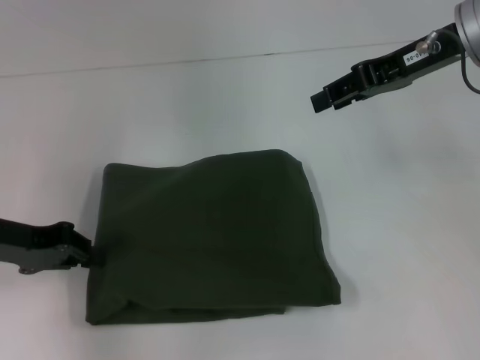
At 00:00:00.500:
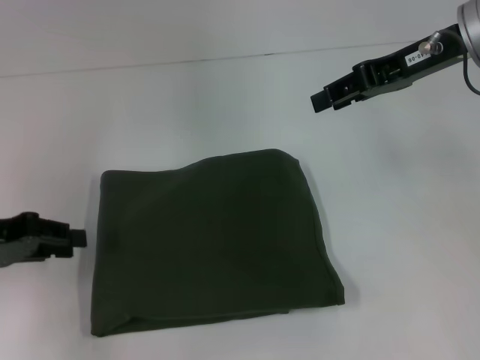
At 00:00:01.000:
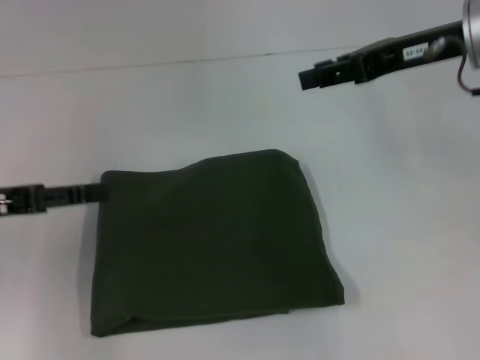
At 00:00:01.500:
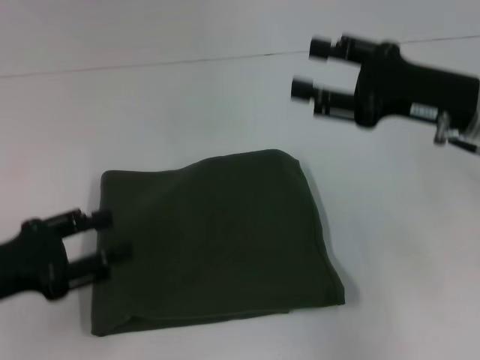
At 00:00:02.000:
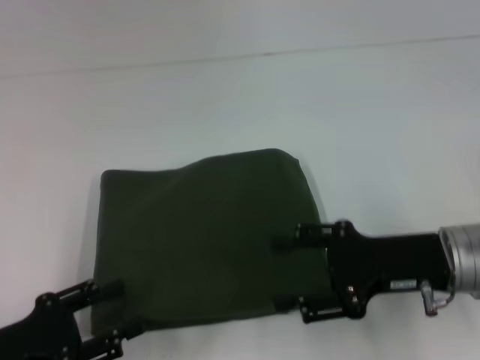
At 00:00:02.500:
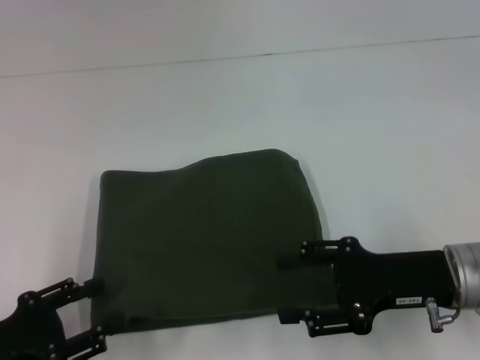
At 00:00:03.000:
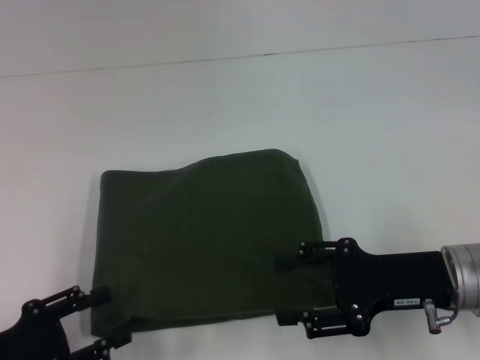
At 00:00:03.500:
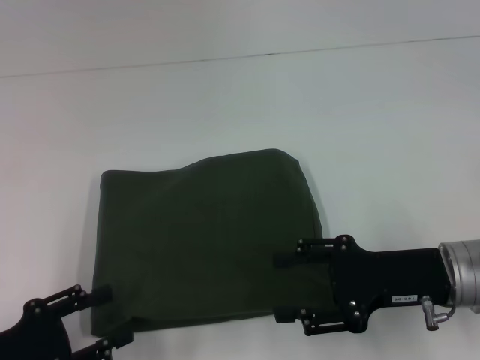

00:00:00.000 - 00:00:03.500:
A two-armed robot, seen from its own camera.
00:00:00.000 - 00:00:02.000: The left gripper heads backward and downward, covering approximately 15 cm, and opens; the right gripper goes about 20 cm downward and backward, and opens up.
00:00:02.000 - 00:00:03.500: There are only small adjustments of the grippers.

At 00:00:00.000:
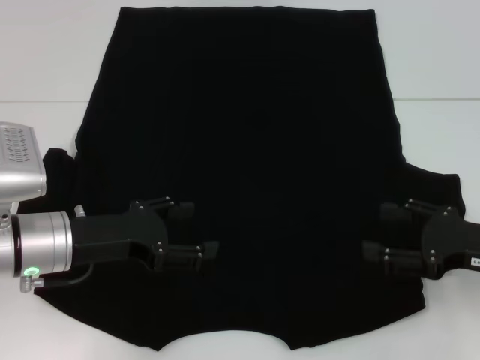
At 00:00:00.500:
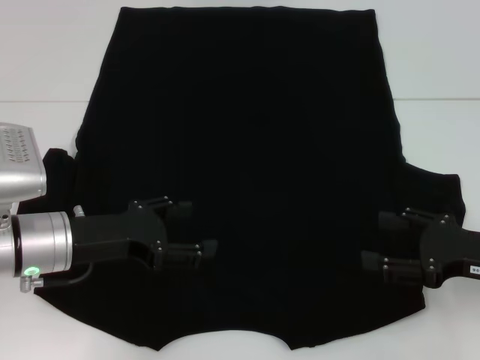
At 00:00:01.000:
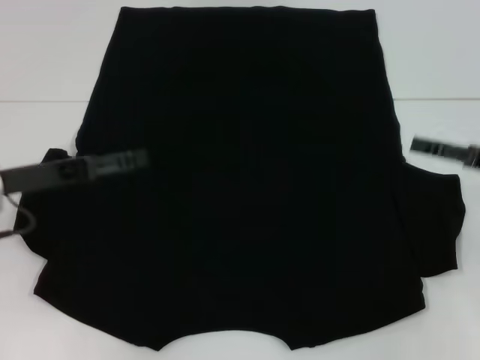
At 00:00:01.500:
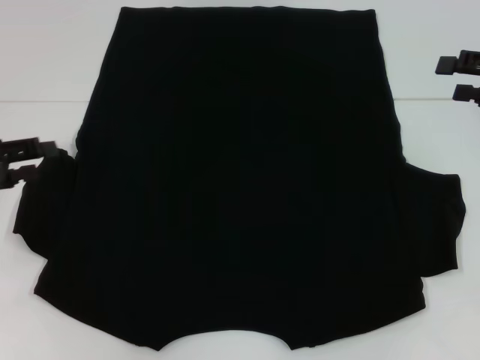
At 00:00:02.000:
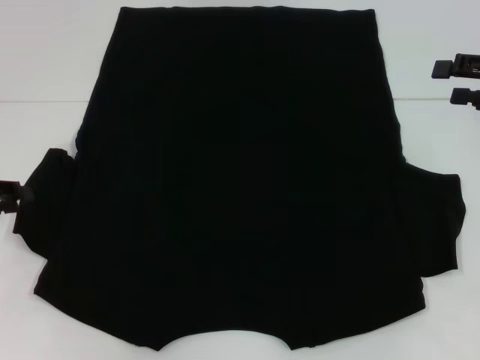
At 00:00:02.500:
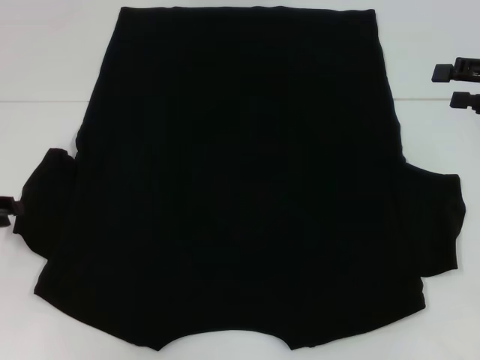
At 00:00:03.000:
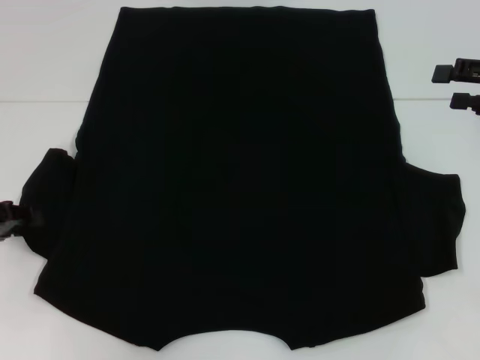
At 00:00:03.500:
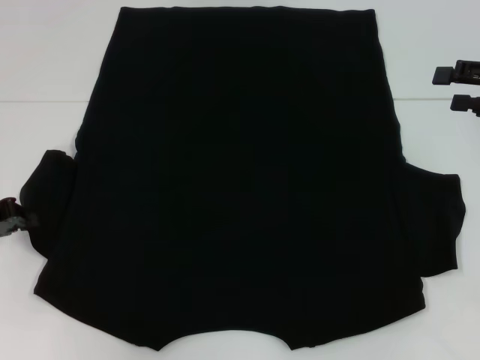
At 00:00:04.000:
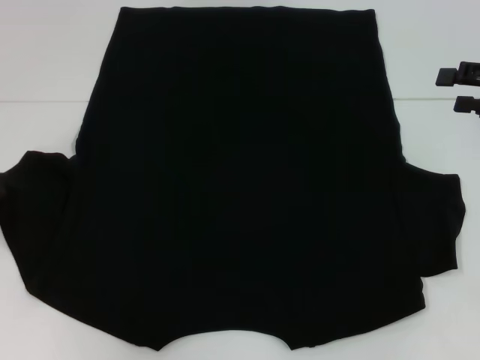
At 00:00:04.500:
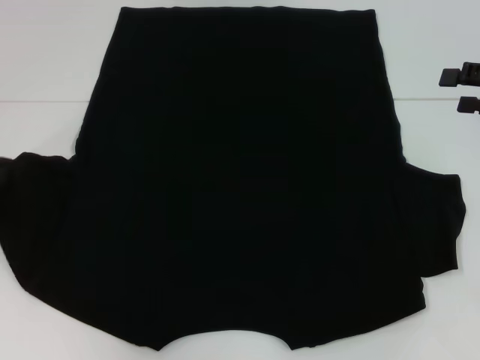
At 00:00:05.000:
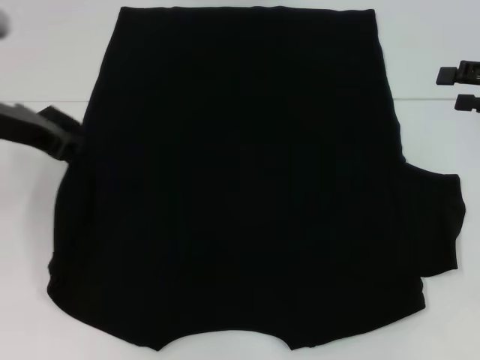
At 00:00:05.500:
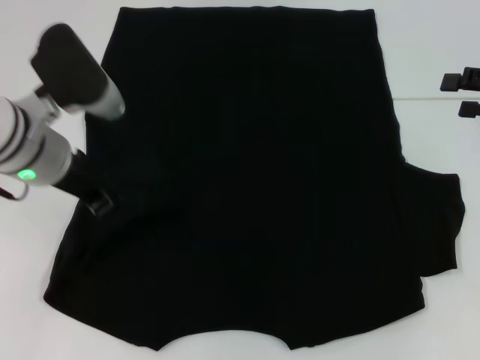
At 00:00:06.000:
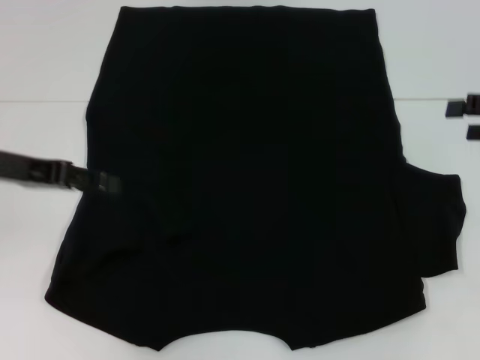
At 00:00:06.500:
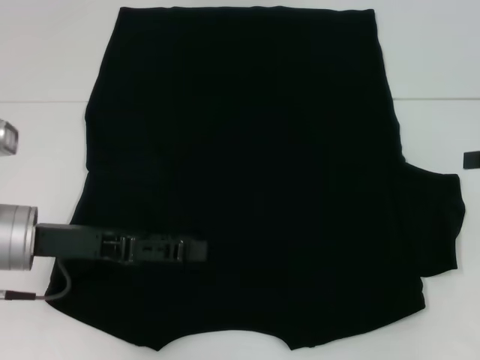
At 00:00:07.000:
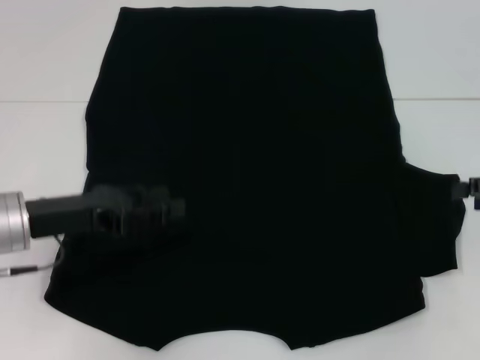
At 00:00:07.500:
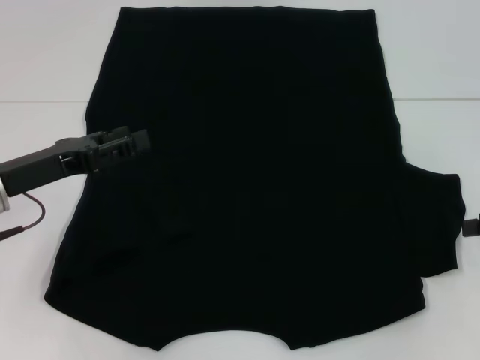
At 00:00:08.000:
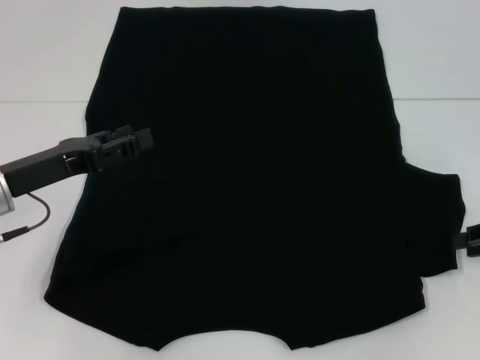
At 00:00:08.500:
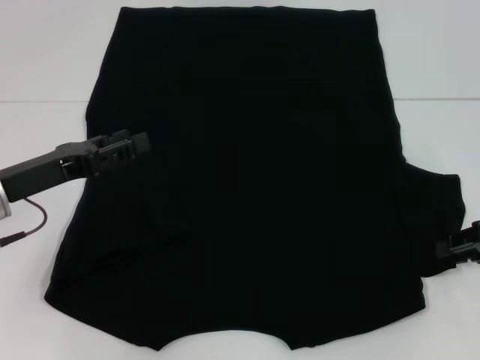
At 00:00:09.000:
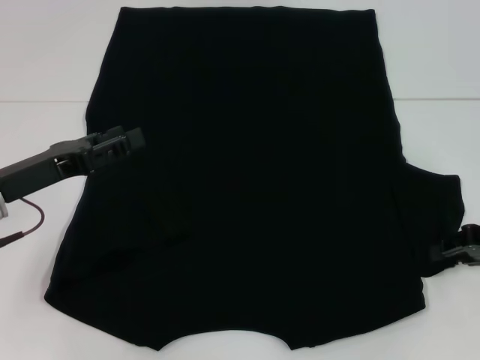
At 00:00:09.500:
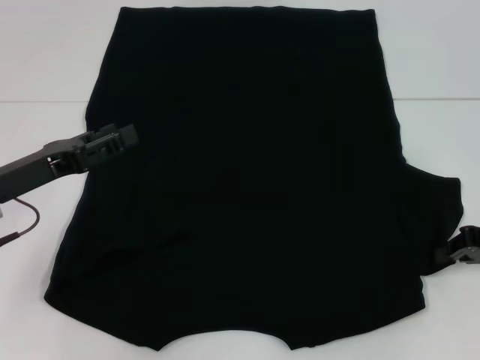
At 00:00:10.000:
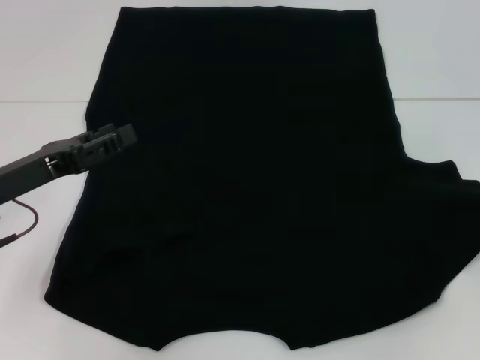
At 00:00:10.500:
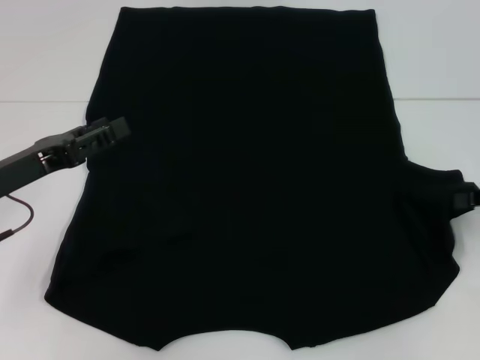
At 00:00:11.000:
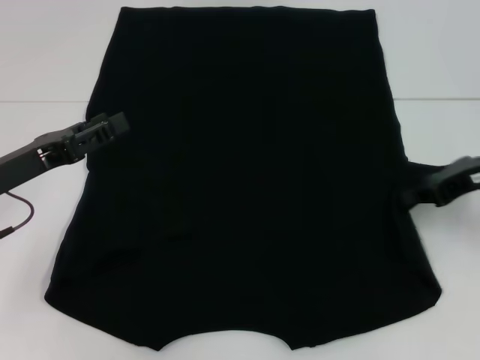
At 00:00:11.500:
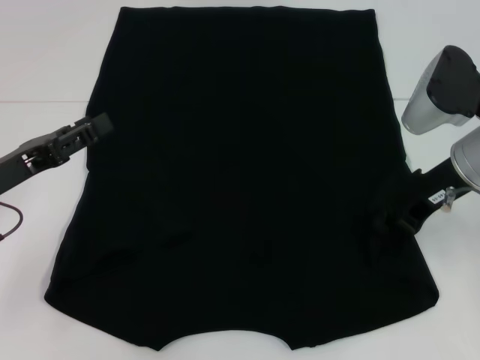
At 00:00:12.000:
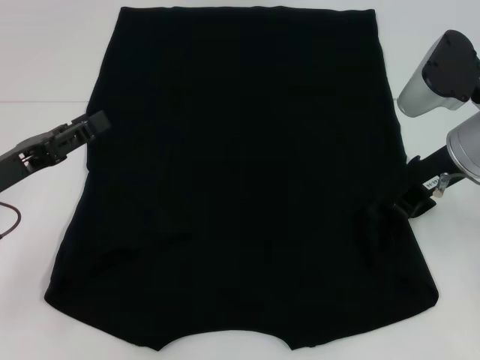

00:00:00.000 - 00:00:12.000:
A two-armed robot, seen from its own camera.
Step, 00:00:00.000 - 00:00:05.500: Fold the bottom left sleeve with your left hand.
00:00:00.000 - 00:00:02.000: The left gripper goes some 15 cm to the left, and closes up; the right gripper heads upward, forward and to the right, covering about 15 cm.
00:00:02.000 - 00:00:04.000: The left gripper closes.
00:00:04.000 - 00:00:06.000: The left gripper travels to the right by about 10 cm, and opens.
00:00:06.000 - 00:00:08.000: The two grippers go roughly 5 cm downward.
00:00:08.000 - 00:00:10.000: The right gripper closes up.
00:00:10.000 - 00:00:12.000: The right gripper shifts some 20 cm to the left.

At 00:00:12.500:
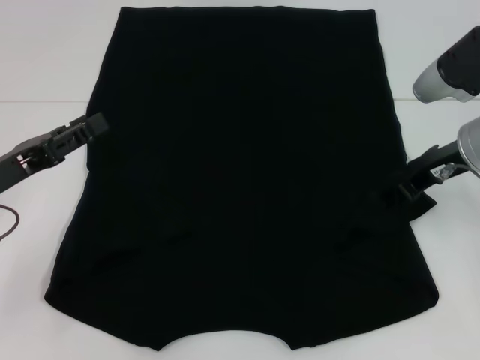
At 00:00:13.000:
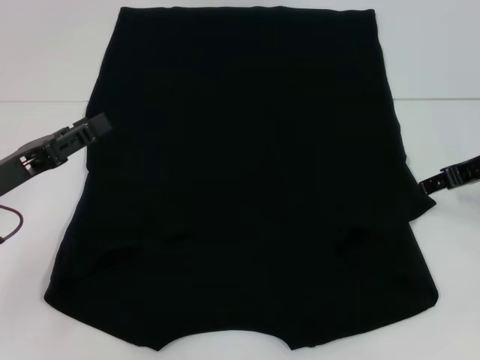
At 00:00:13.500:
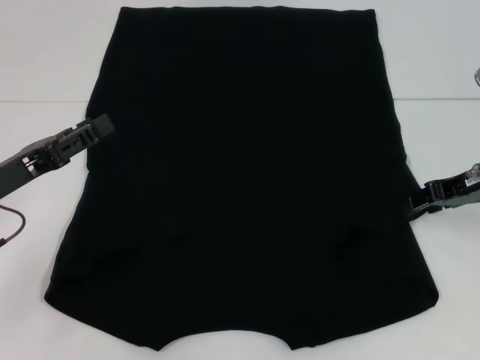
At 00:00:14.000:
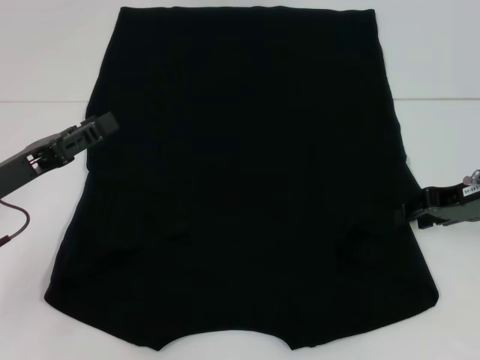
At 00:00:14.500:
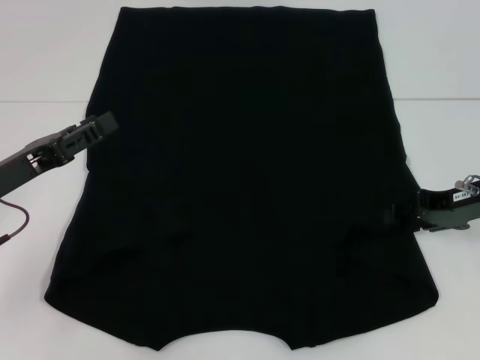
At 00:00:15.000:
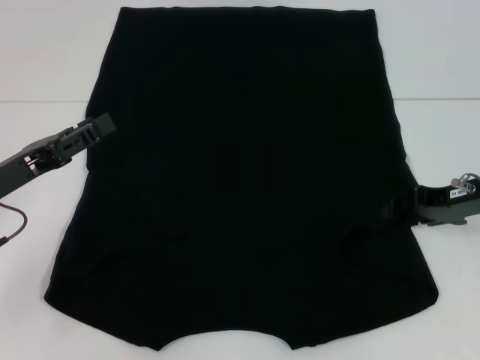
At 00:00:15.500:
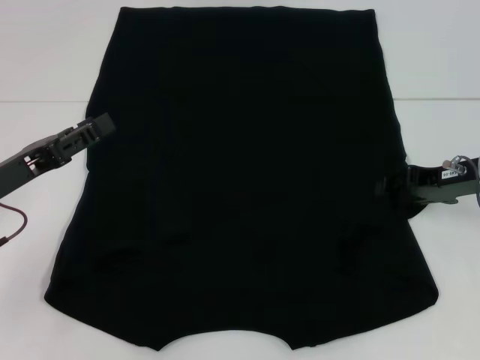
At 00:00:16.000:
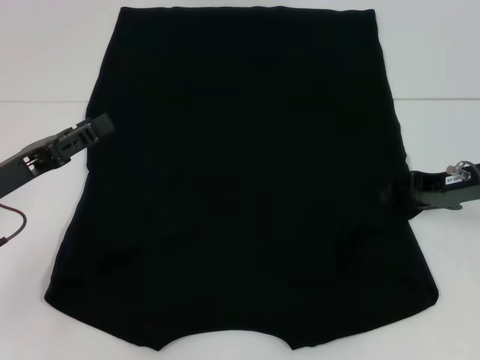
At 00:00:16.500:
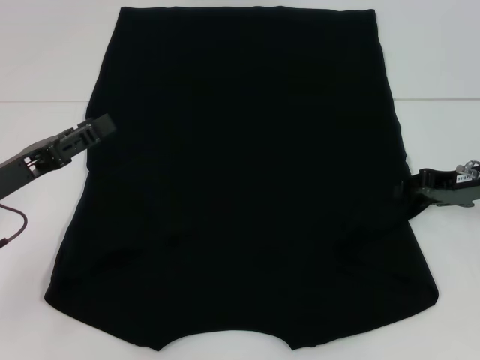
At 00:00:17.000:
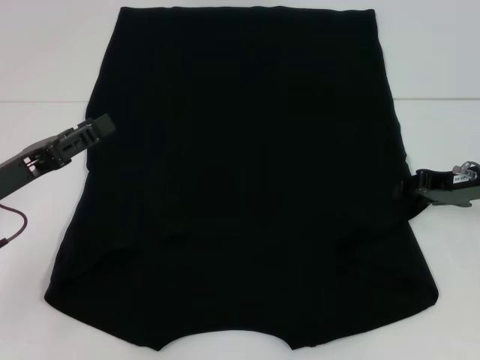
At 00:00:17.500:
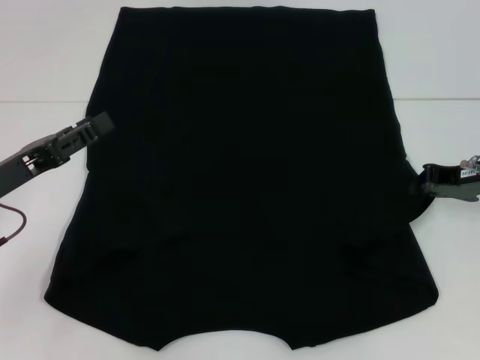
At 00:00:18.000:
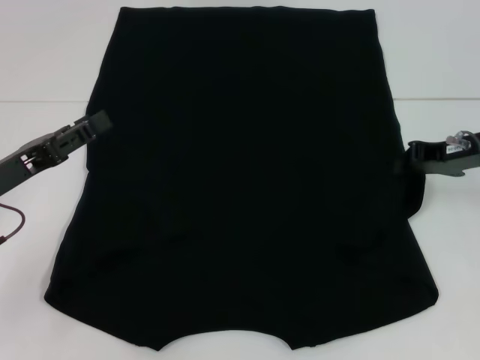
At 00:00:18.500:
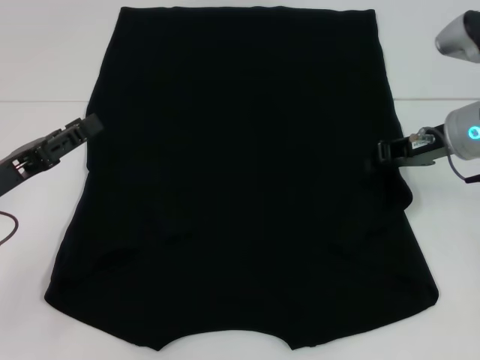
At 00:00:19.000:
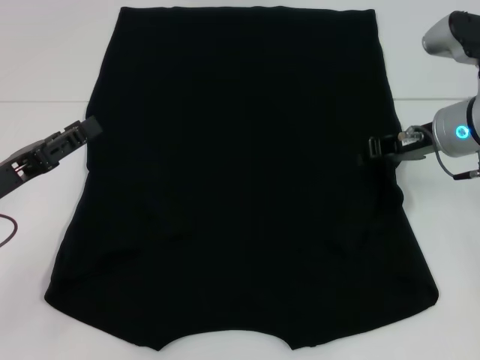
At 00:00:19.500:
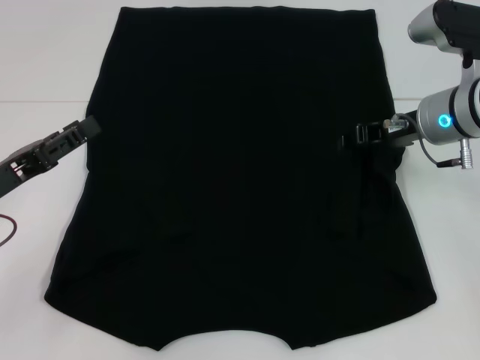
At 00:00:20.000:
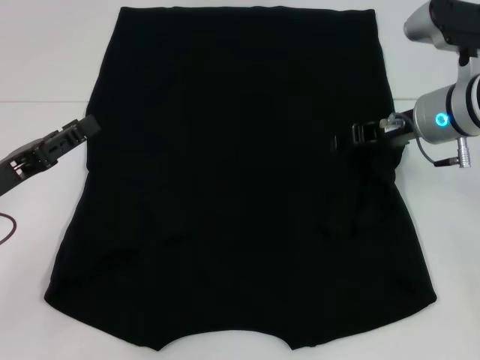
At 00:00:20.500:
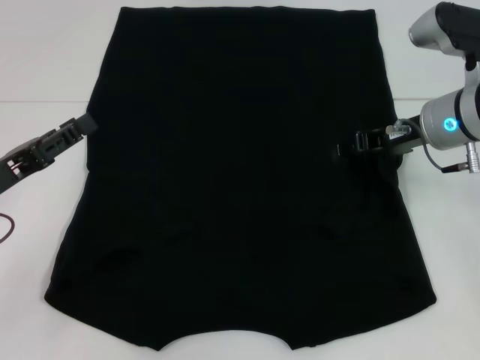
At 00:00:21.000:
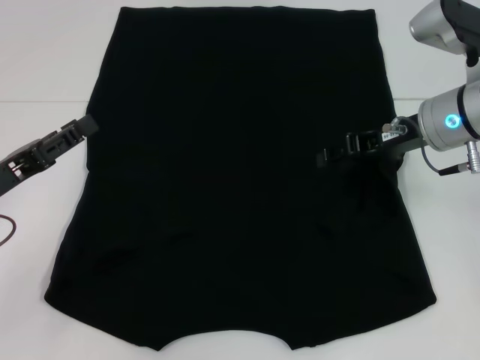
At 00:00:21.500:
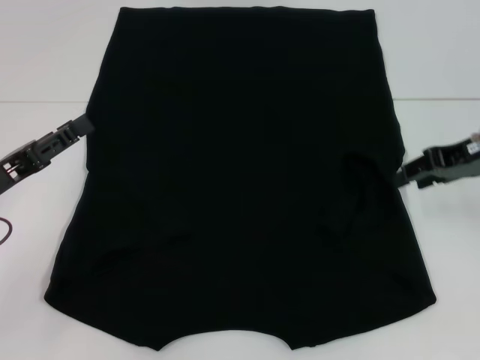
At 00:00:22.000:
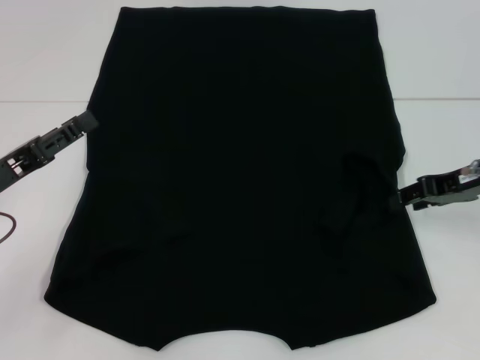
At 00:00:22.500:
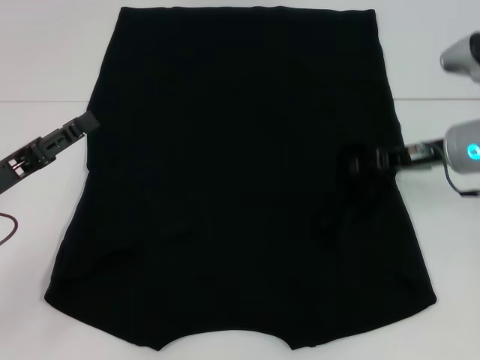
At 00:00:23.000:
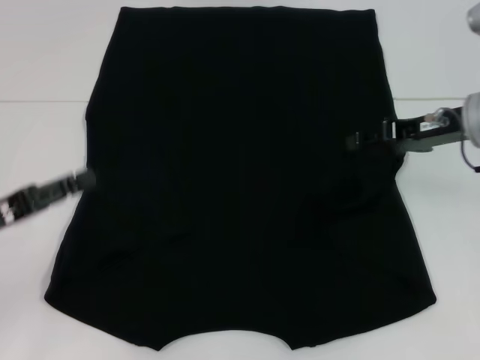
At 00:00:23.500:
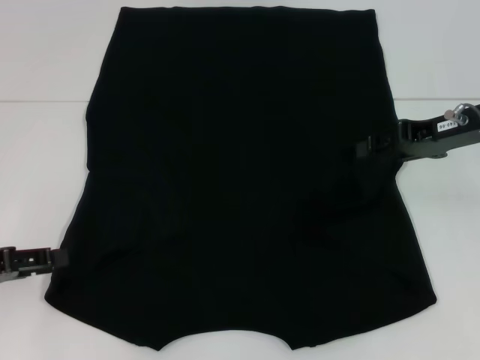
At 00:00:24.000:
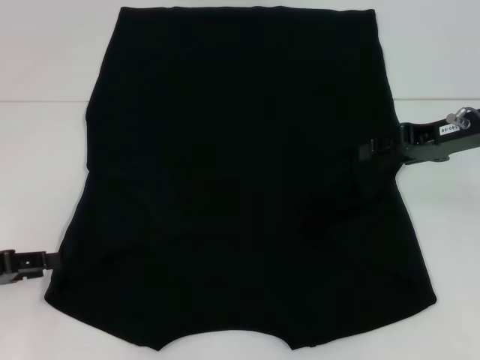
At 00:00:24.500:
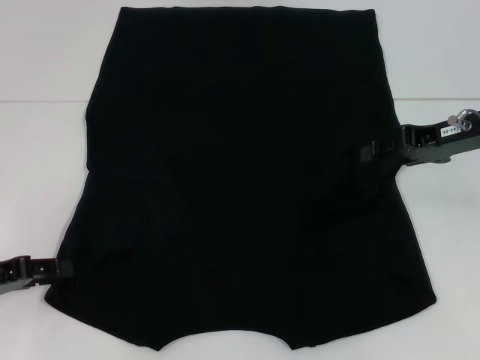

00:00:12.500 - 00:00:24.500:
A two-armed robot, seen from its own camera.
Step, 00:00:12.500 - 00:00:21.000: Fold the bottom right sleeve with your right hand.
00:00:12.500 - 00:00:14.500: The right gripper moves some 5 cm.
00:00:14.500 - 00:00:16.500: The grippers make only small movements.
00:00:16.500 - 00:00:18.500: The right gripper moves to the left, roughly 5 cm, and closes up.
00:00:18.500 - 00:00:20.500: The right gripper opens.
00:00:22.500 - 00:00:24.500: The right gripper shifts by some 5 cm. Meanwhile the left gripper shifts by approximately 5 cm.
